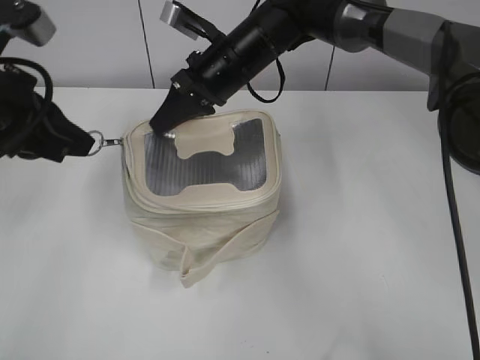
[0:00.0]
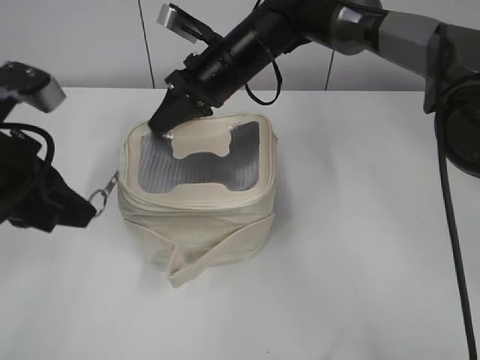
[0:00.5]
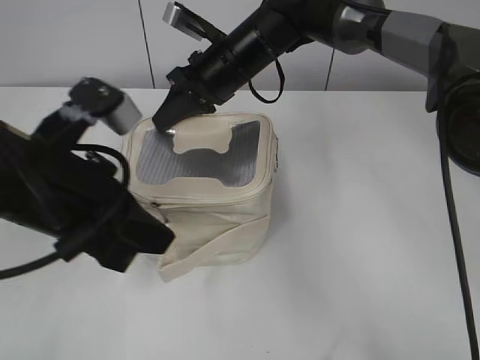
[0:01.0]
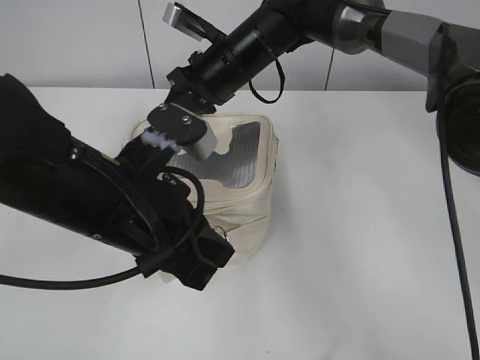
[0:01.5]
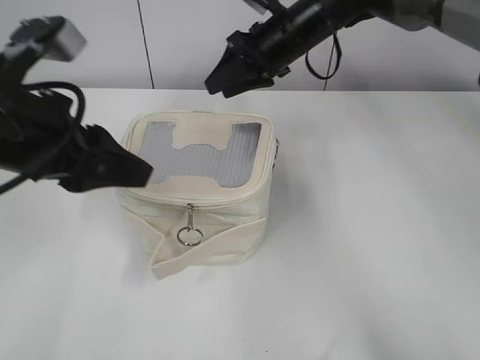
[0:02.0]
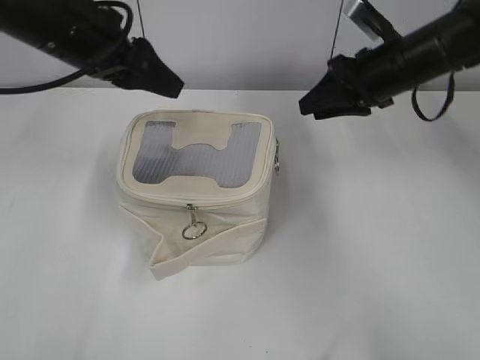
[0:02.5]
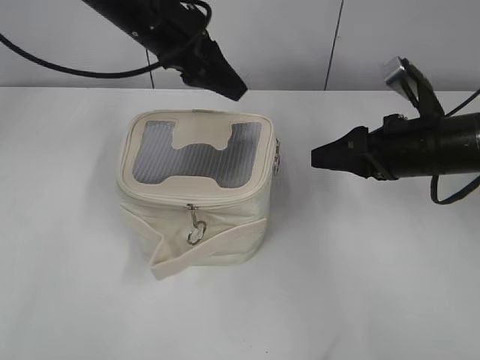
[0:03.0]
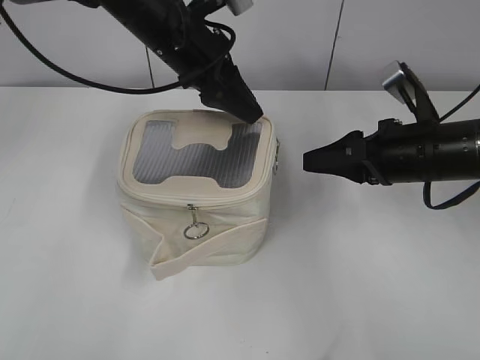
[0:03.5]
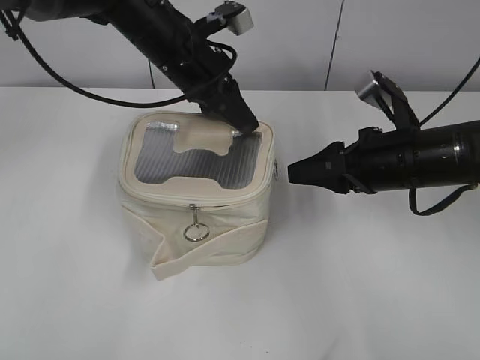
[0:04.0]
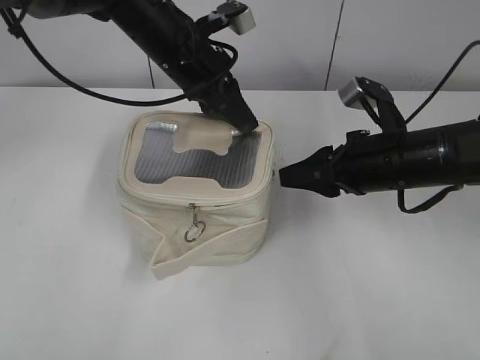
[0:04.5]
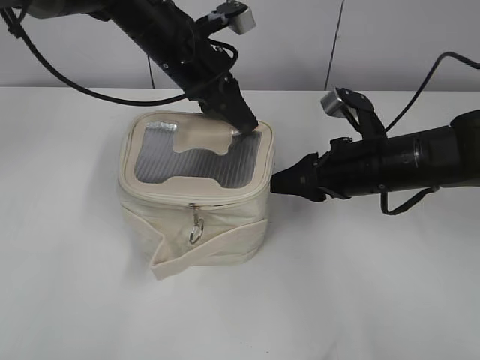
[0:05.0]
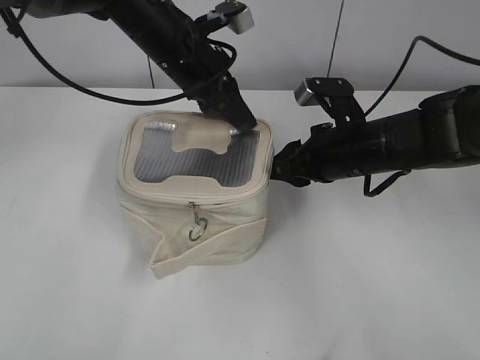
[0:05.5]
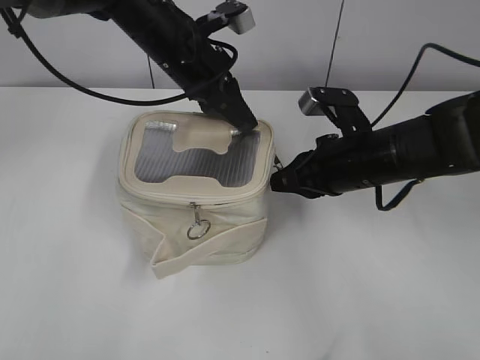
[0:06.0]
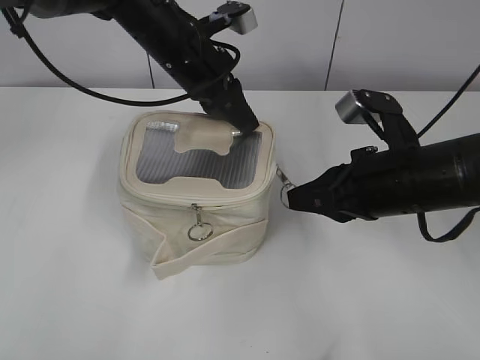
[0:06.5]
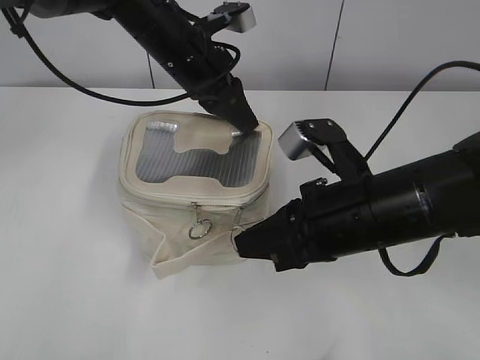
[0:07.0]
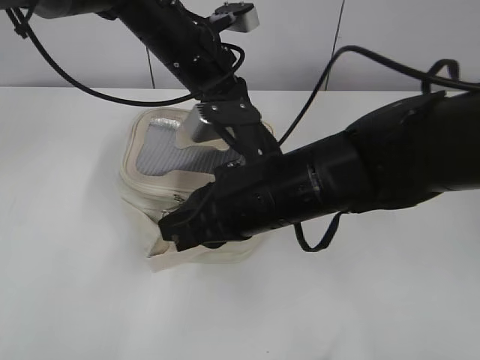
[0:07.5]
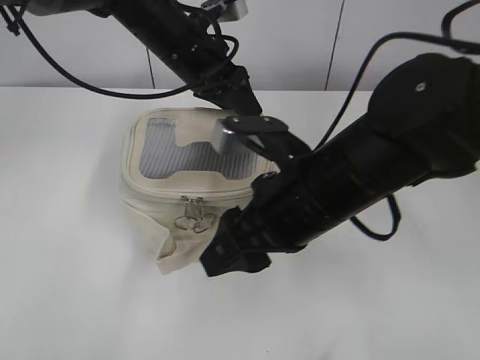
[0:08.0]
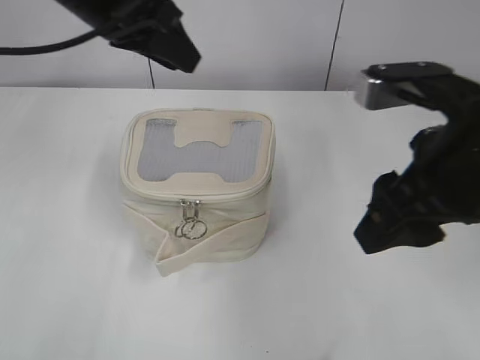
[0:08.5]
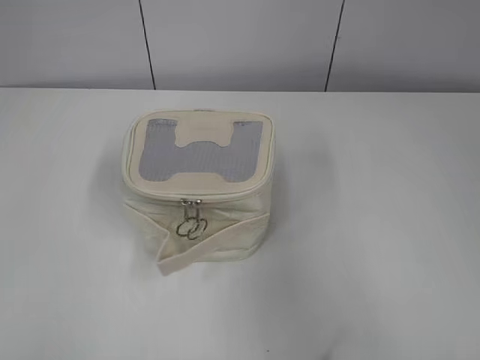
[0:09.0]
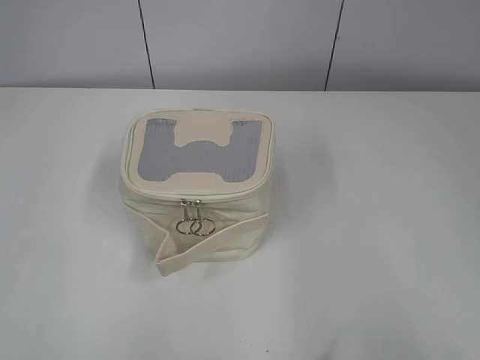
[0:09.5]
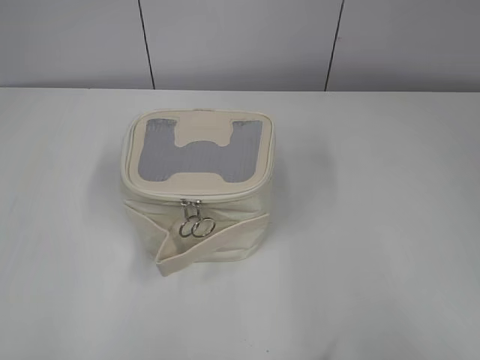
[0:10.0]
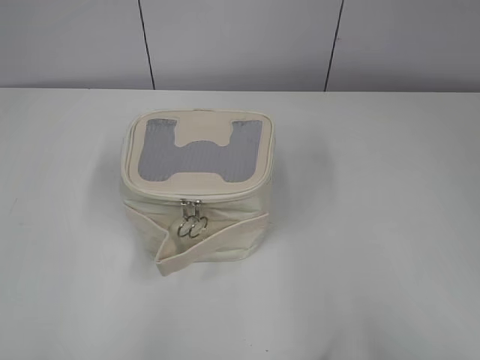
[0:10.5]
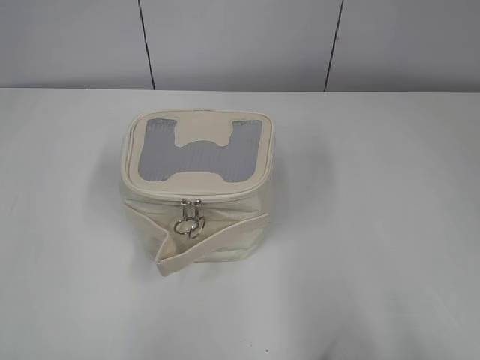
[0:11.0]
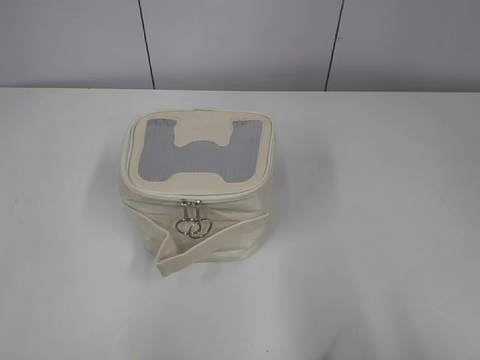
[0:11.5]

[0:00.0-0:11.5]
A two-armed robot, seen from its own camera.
Step, 0:02.0 to 0:07.5: Zip up the bag with your right hand.
0:00.0 to 0:02.0: The right gripper goes approximately 5 cm to the right, and opens, while the left gripper reaches roughly 10 cm to the right, then returns, and opens.
0:02.0 to 0:04.0: The left gripper travels forward and to the right by about 20 cm, and closes its fingers. Meanwhile the right gripper travels backward and to the right by some 20 cm.
0:04.0 to 0:06.0: The right gripper closes its fingers.
0:06.0 to 0:07.5: The right gripper travels to the left and backward by some 15 cm.
0:07.5 to 0:09.5: The left gripper moves backward and to the left, approximately 50 cm, and opens up. The right gripper shifts roughly 35 cm to the right, backward and upward, and opens.
